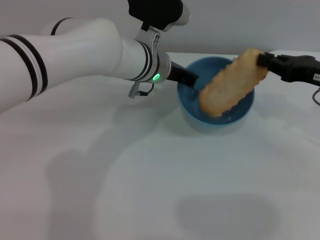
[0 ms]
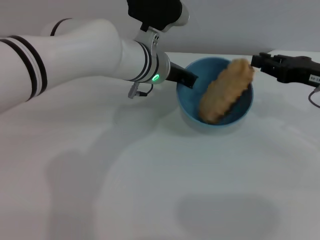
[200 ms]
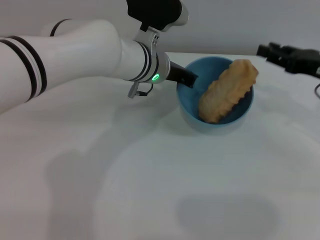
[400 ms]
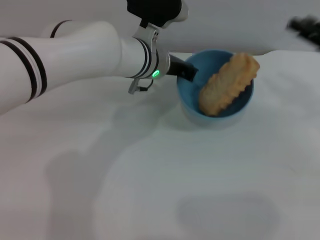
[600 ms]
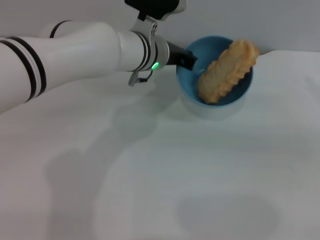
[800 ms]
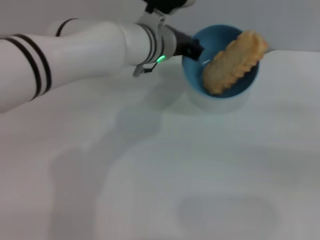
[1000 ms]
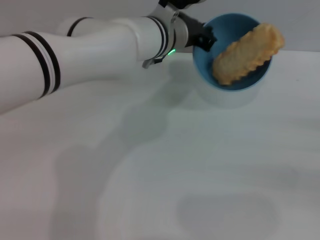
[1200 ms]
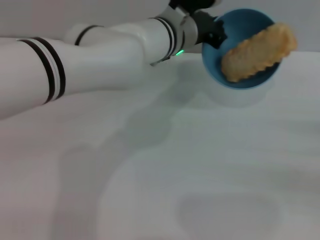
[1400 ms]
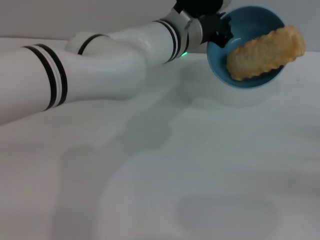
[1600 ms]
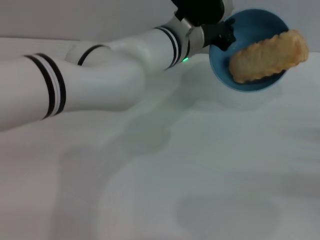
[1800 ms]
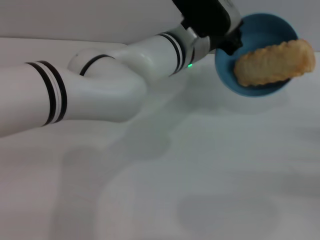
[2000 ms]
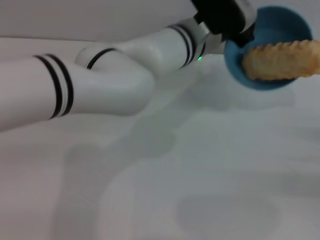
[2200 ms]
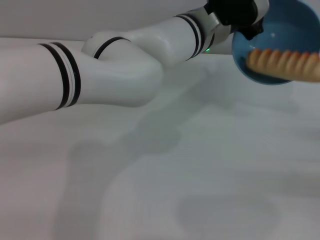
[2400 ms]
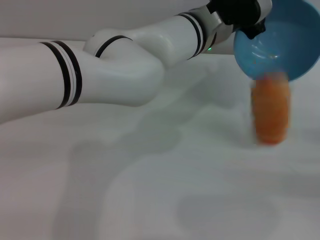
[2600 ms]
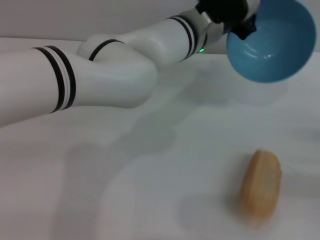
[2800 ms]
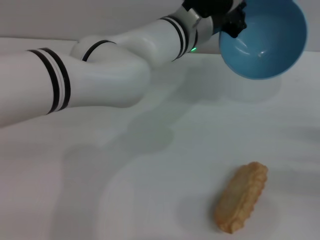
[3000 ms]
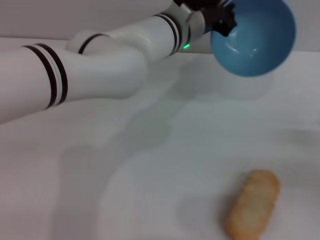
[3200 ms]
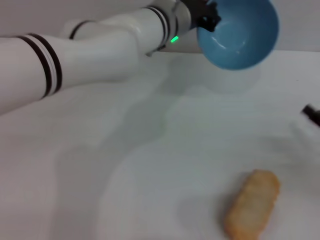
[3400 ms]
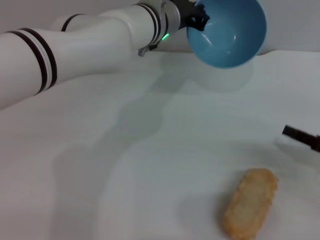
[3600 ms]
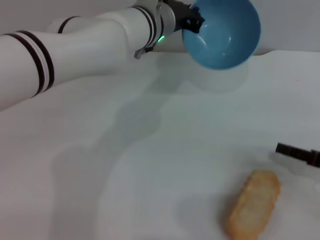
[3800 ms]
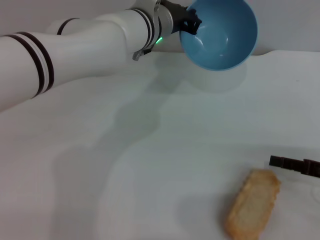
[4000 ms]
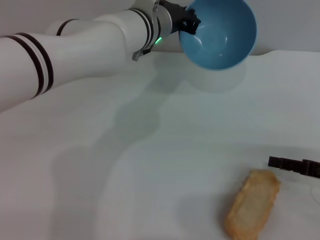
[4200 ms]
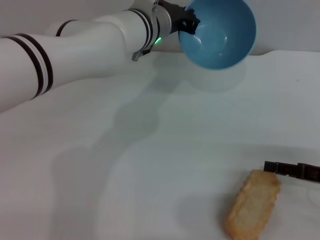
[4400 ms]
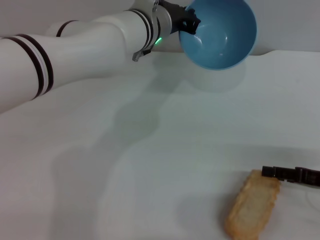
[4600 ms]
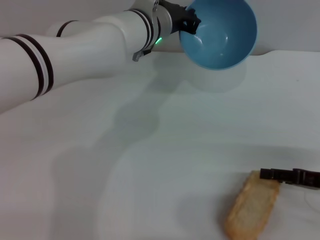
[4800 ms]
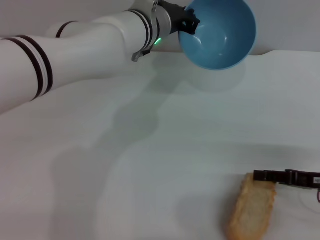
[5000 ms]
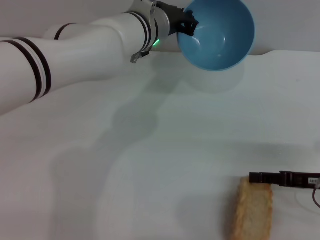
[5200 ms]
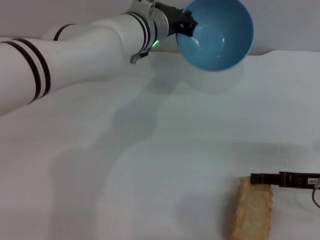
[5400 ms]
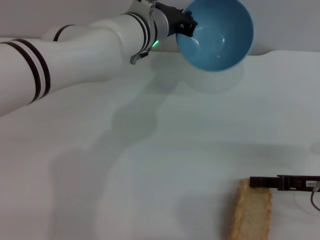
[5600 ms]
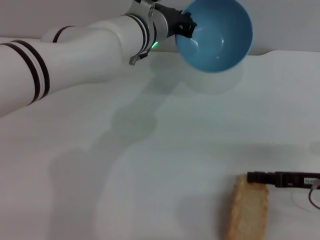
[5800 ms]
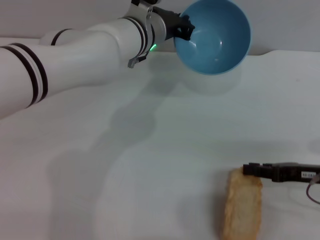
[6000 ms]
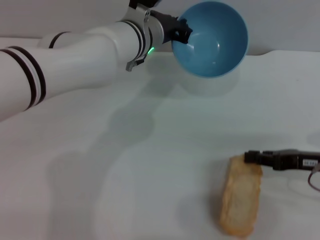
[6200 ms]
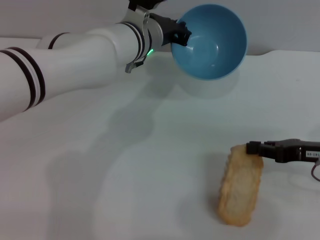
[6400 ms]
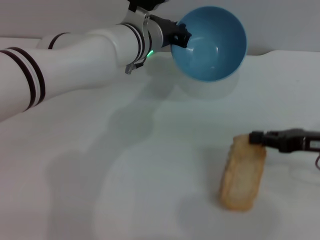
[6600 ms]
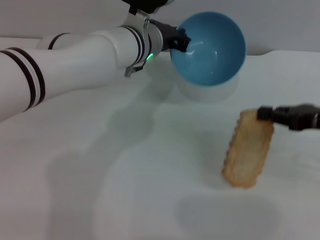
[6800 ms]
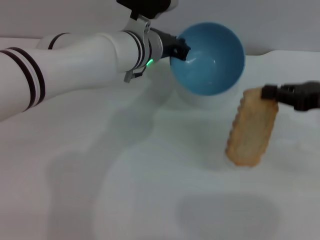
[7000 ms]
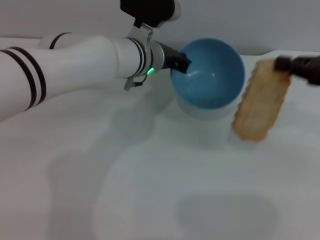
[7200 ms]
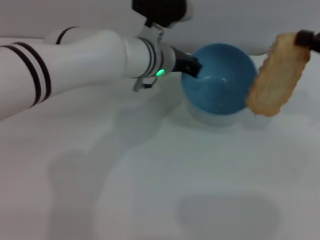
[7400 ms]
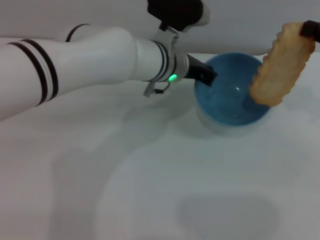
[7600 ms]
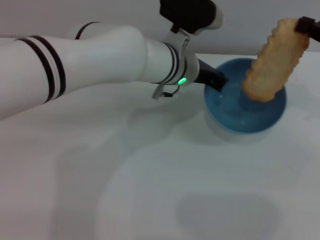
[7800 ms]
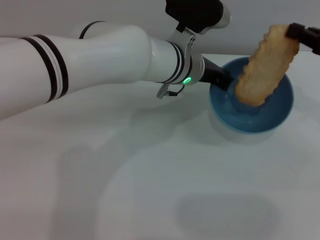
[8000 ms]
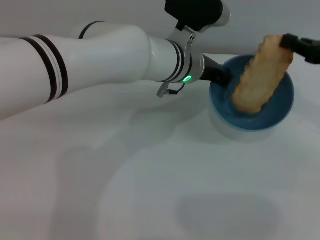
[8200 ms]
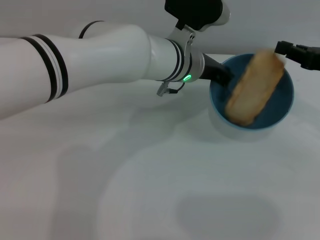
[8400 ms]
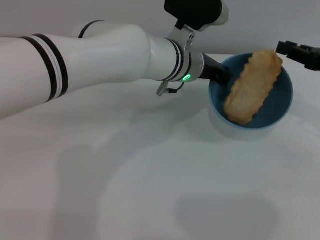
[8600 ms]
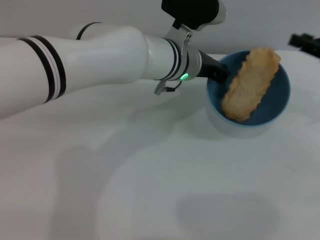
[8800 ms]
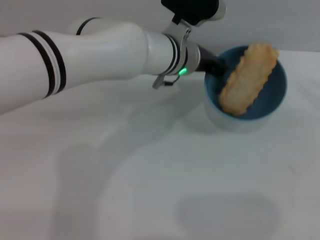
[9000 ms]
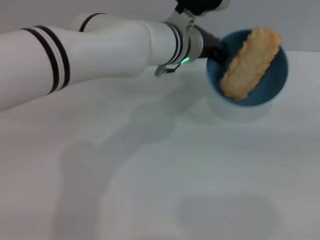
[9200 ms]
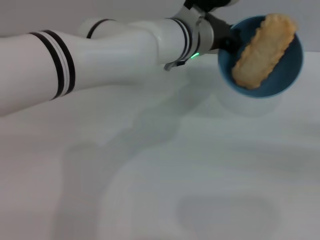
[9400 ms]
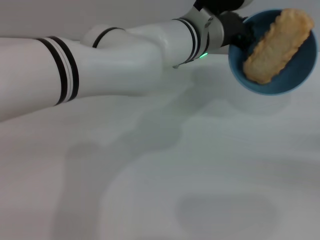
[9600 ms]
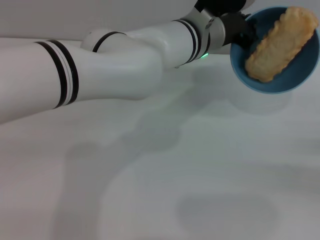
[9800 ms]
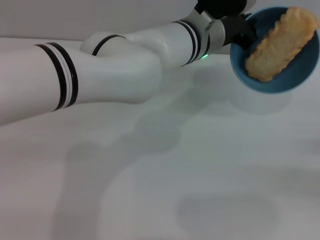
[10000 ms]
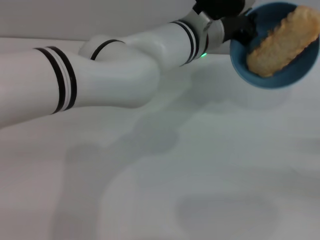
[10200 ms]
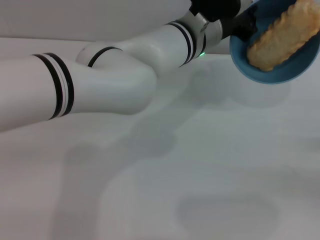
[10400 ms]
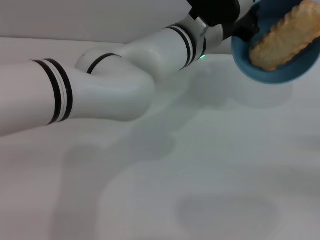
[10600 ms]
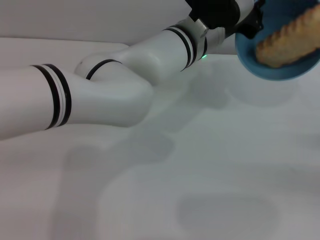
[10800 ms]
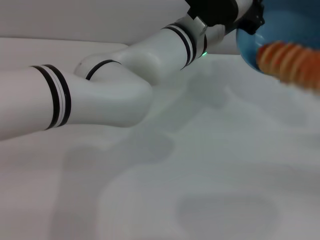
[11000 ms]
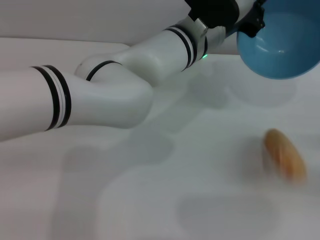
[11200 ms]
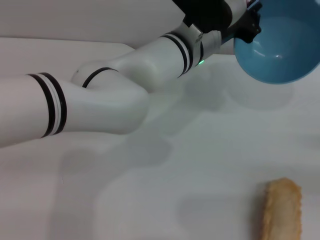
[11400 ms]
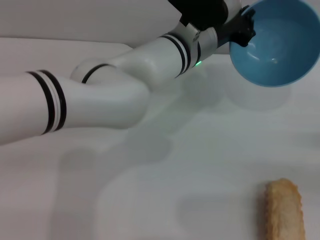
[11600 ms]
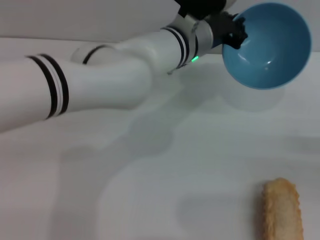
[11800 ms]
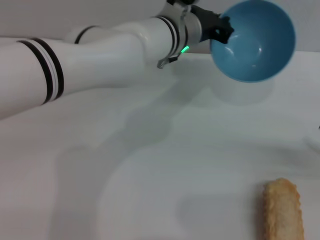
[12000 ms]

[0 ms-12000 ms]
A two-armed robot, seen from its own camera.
Task of the whole recording: put the bread into the blue bowl and pour it out repeatedly.
Step, 600 ms to 3000 ms: Pour the bread out of the bowl.
Step, 3200 ms to 7000 ms: Pick up the bread with the right gripper.
Step, 7400 ms to 8600 ms: Place the bread into the bowl.
Step, 8800 ms to 11200 ms: Pour the bread out of the bowl.
0 ms to 1600 ms: The right gripper is displaced backward, to the right and downward by some 15 cm, and opens up.
1600 ms to 3000 ms: The grippers stay close to where they were, moving slightly.
3000 ms to 4400 ms: The left gripper shifts by about 5 cm.
4400 ms to 6000 ms: The right gripper closes up.
6000 ms to 7600 ms: The right gripper goes roughly 15 cm upward and forward.
7600 ms to 9000 ms: The right gripper travels to the right by some 5 cm, and opens.
9000 ms to 10400 ms: The right gripper heads downward and backward, covering roughly 15 cm, and opens.

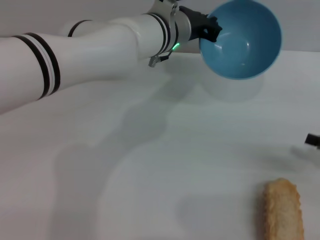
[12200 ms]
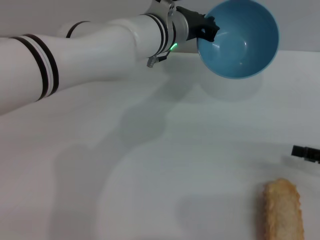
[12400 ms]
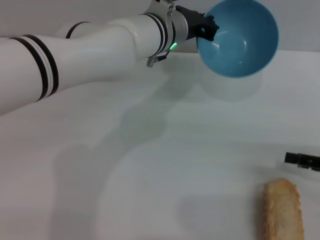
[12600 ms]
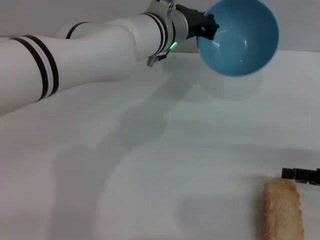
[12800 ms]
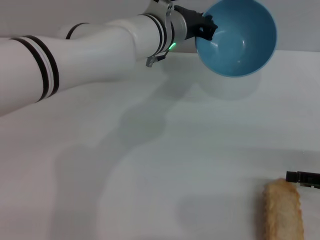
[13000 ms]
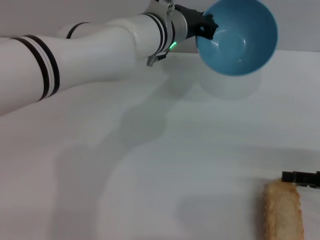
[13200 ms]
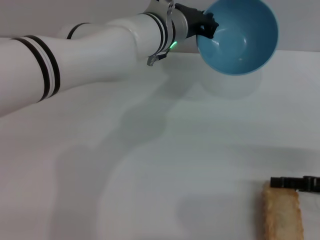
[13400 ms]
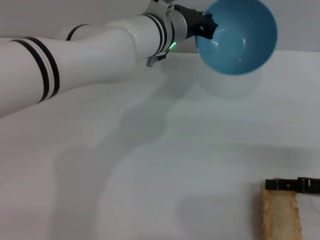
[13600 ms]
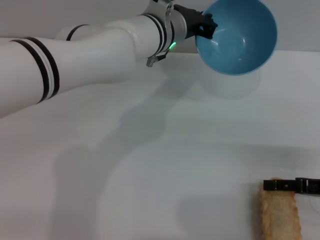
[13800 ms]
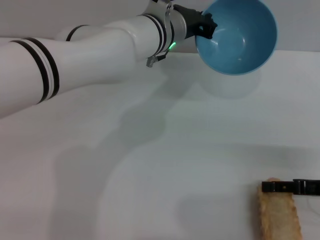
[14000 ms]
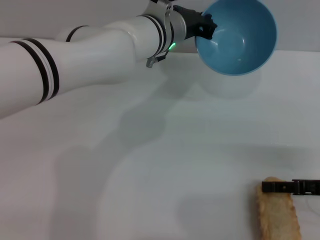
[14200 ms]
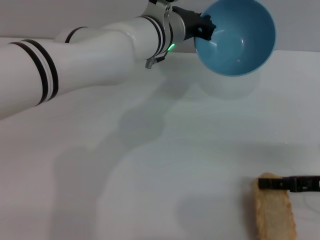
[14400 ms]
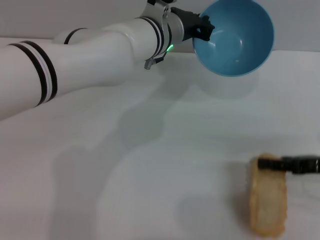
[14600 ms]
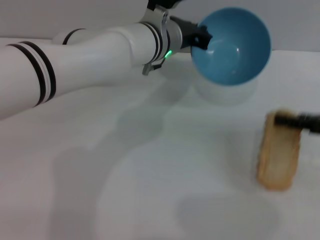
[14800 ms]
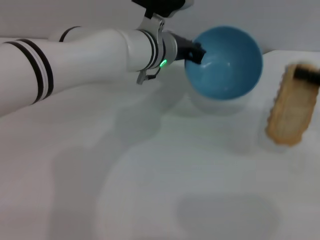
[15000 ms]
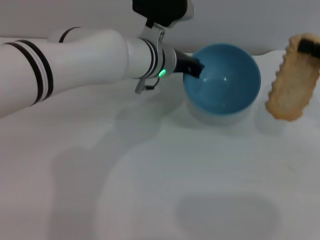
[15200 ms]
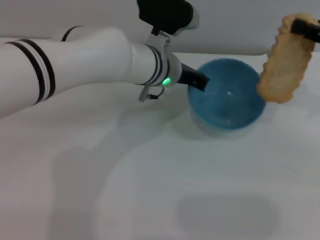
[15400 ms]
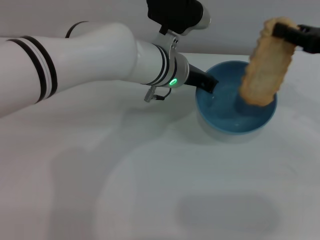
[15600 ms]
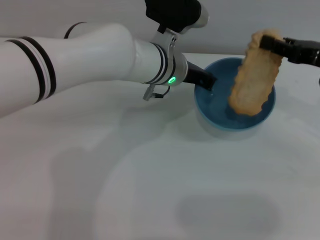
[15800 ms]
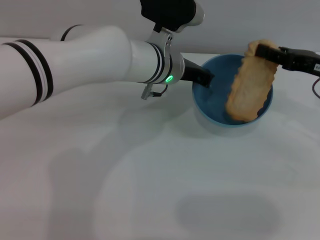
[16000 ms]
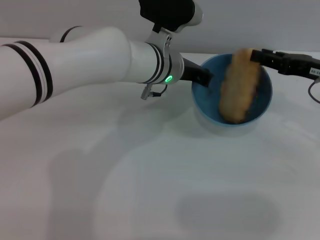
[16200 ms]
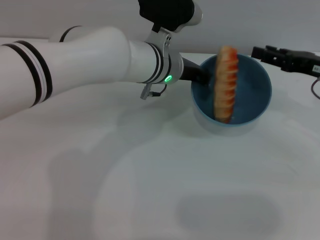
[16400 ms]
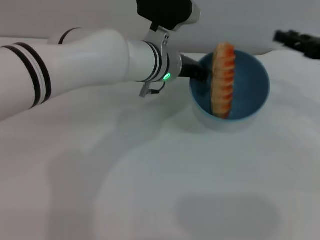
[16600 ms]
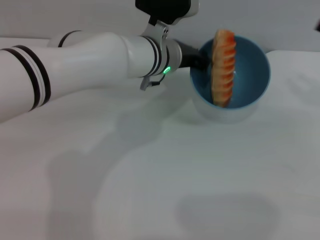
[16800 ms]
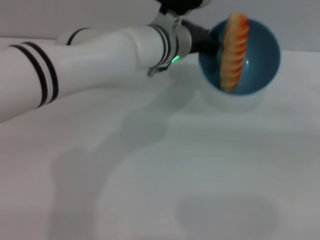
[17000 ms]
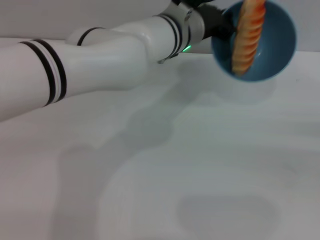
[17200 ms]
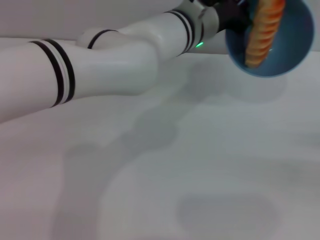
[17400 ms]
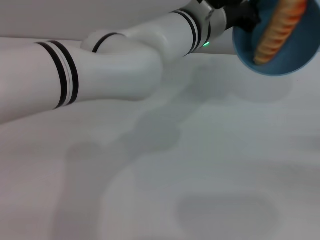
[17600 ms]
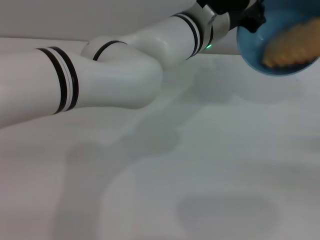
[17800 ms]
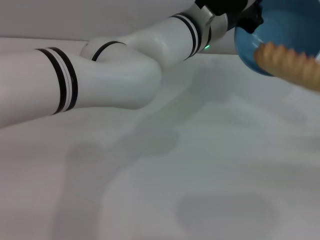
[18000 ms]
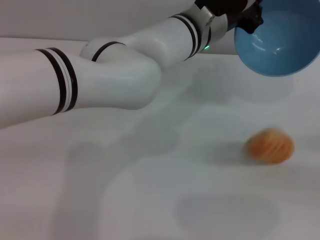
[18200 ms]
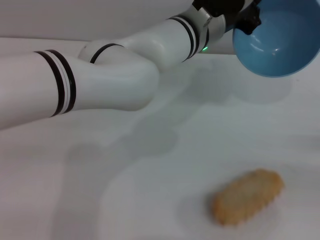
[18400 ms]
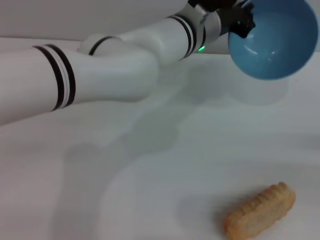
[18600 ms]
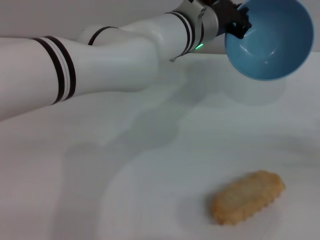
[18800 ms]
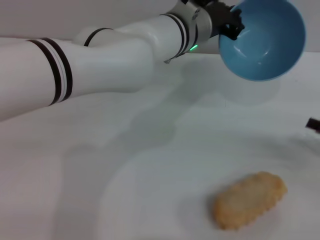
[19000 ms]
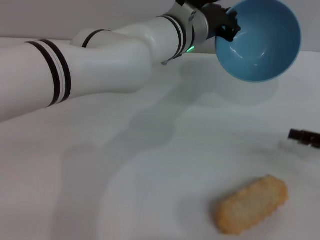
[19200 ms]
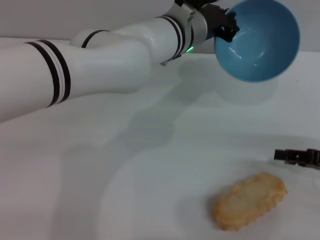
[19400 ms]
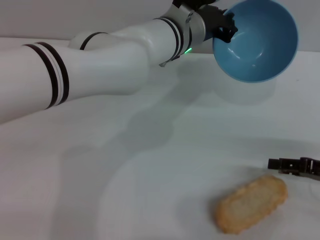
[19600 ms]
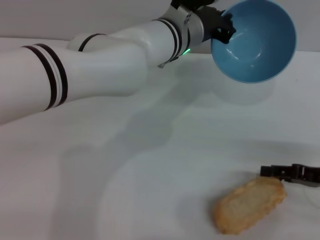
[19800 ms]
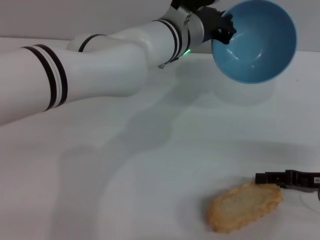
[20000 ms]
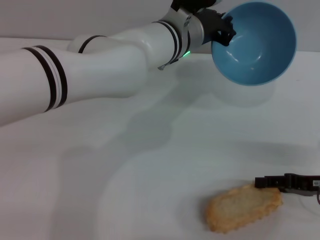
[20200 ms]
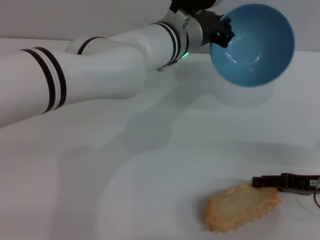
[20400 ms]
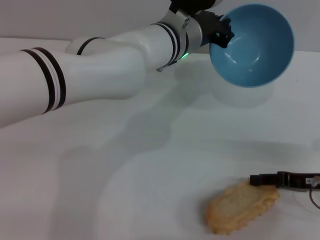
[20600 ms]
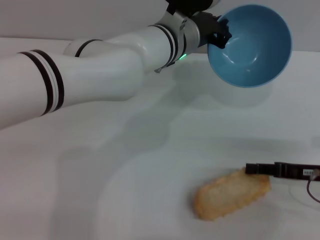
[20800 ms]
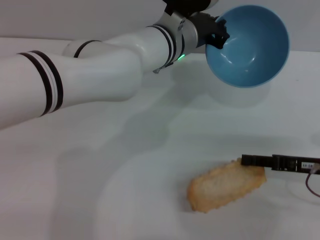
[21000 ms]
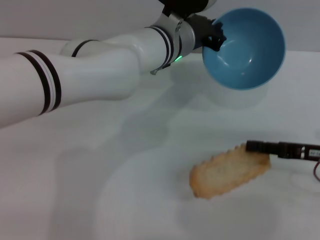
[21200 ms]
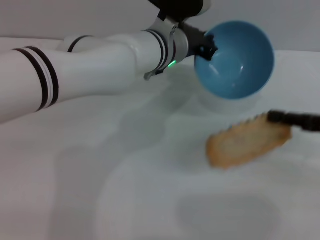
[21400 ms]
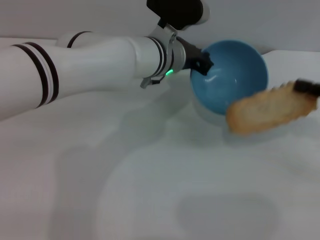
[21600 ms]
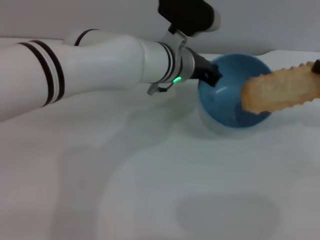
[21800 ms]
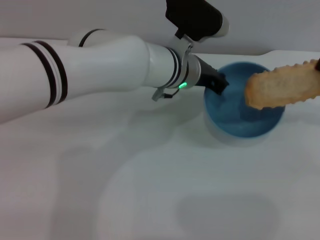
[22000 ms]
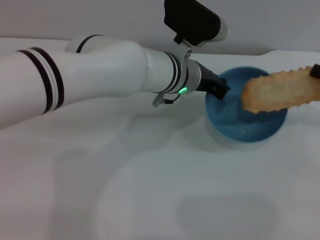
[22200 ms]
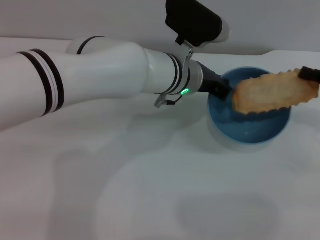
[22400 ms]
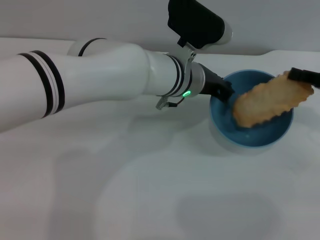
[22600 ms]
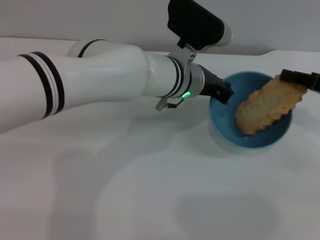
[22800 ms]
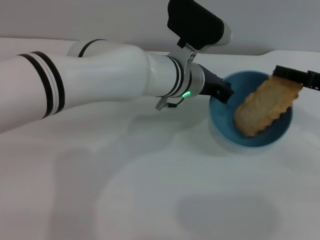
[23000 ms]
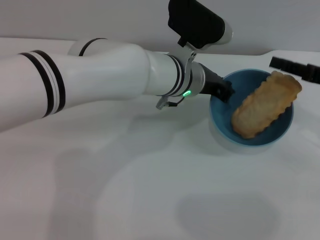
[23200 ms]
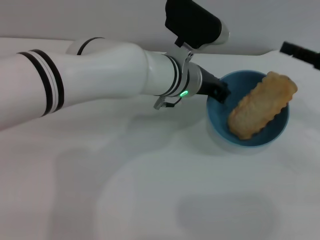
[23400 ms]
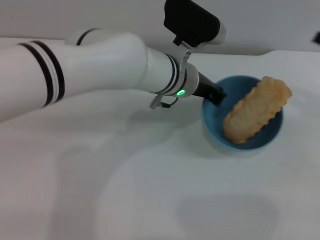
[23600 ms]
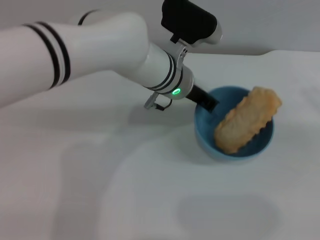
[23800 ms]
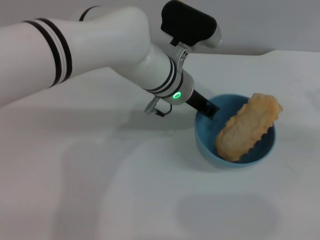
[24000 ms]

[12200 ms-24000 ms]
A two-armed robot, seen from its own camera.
Task of the whole recording: put the bread into the blue bowl and pour it out repeatedly.
Step, 12200 ms to 14800 ms: Pick up the bread with the right gripper.
Step, 15000 ms to 16400 ms: Place the bread into the bowl.
Step, 16600 ms to 18400 ms: Pour the bread out of the bowl.
Step, 18600 ms to 21400 ms: Pick up the bread with the right gripper.
Step, 21600 ms to 23200 ms: Place the bread into the bowl.
12200 ms to 13600 ms: The right gripper shifts by roughly 5 cm.
13600 ms to 15200 ms: The right gripper shifts some 15 cm upward and forward, and closes.
16600 ms to 18200 ms: The right gripper goes some 20 cm backward, to the right and downward; the left gripper shifts some 5 cm to the right.
18200 ms to 19600 ms: The right gripper moves to the left, roughly 10 cm.
19600 ms to 21000 ms: The grippers make only small movements.
21000 ms to 22600 ms: The right gripper moves upward and forward, about 10 cm.
22600 ms to 24000 ms: The right gripper moves to the right, some 5 cm, and opens.
